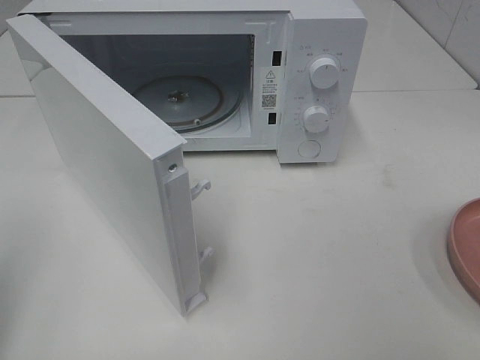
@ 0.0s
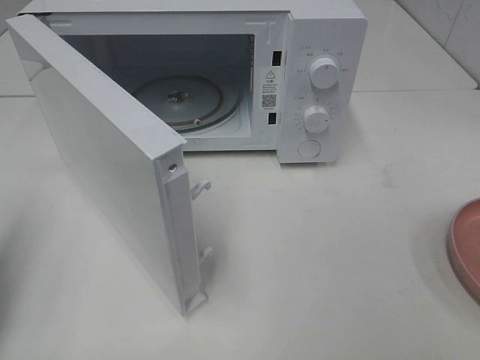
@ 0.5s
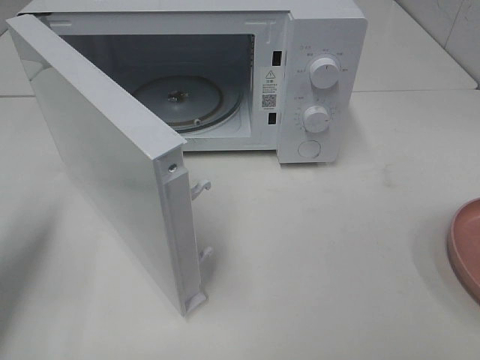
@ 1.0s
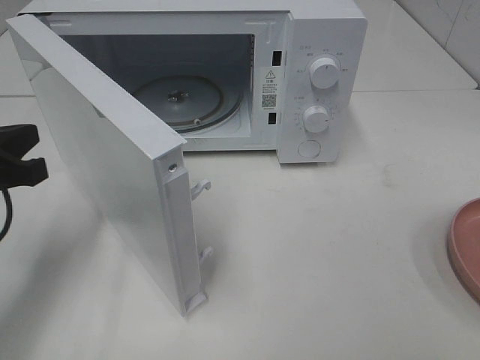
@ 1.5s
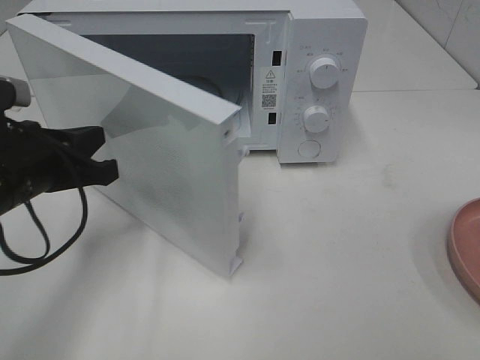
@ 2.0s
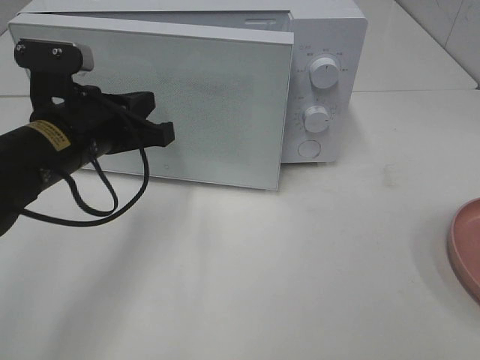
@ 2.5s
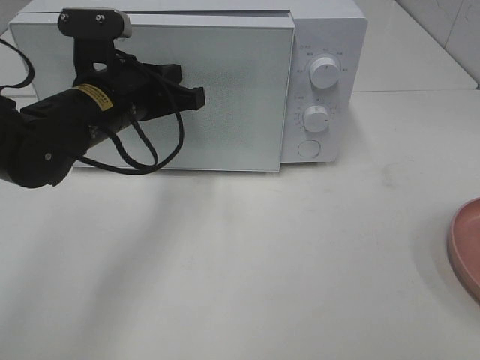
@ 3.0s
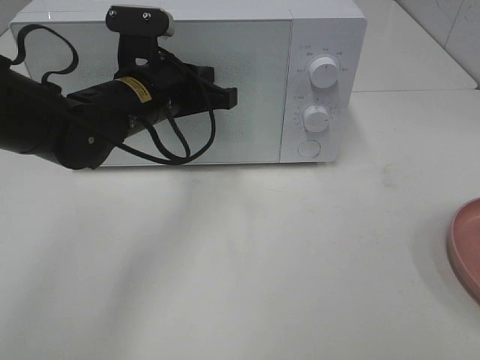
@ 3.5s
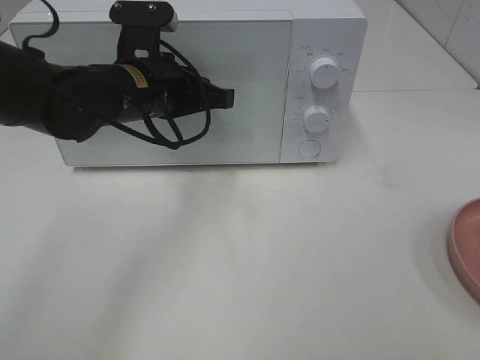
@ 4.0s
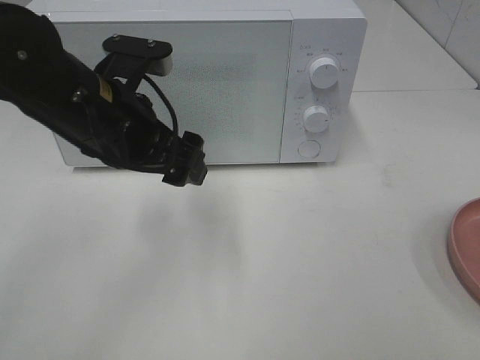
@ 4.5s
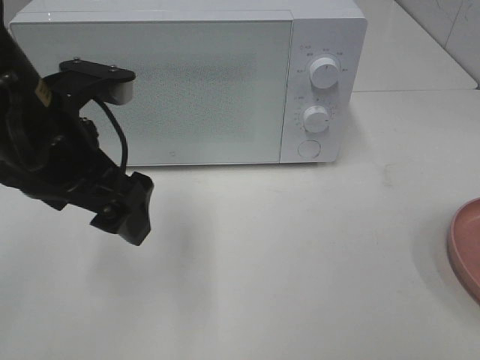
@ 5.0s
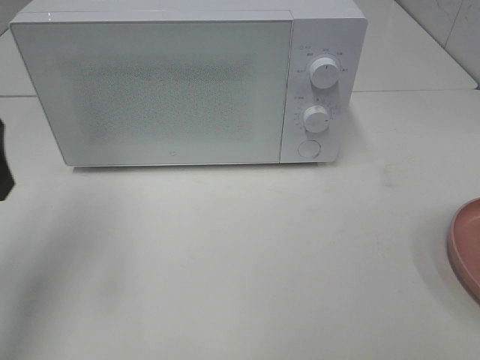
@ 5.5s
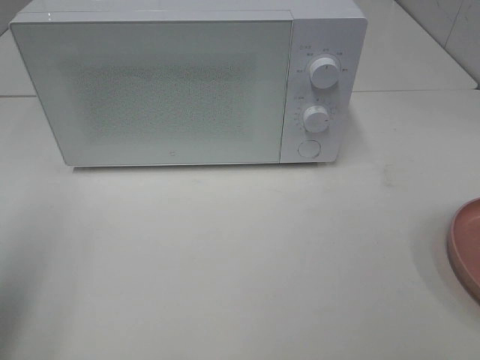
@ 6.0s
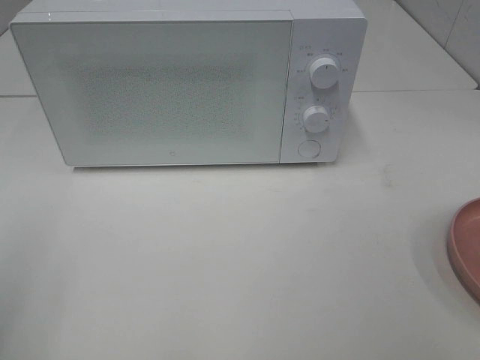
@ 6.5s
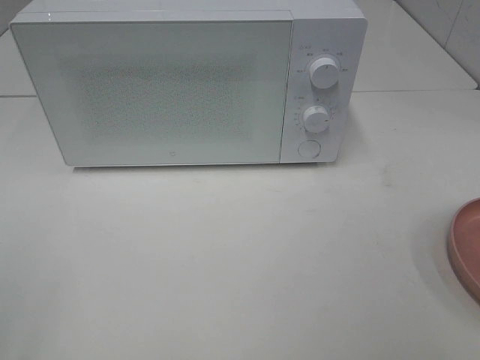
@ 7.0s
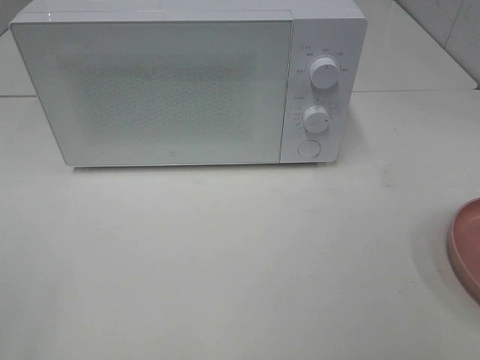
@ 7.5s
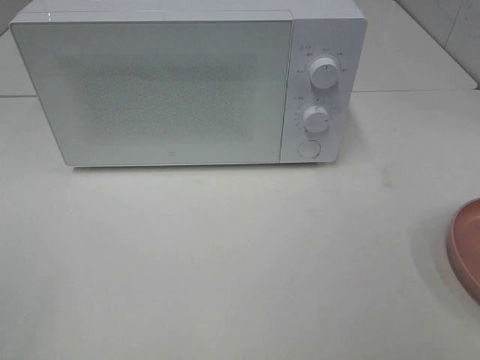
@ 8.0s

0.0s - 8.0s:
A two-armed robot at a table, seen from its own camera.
Task of the whole recording: Heat the burger.
Step, 0.0s - 3.5s: Left hand: close the microwave door.
0.0s - 2.0s: The left gripper heads forward, to the right and downward, covering about 20 cm.
2.0s - 4.0s: The left gripper moves to the right and forward, about 15 cm.
4.0s - 6.0s: The left gripper travels to the left, backward and upward by approximately 30 cm, and opens up.
6.0s - 8.0s: The left gripper travels backward by about 15 cm.

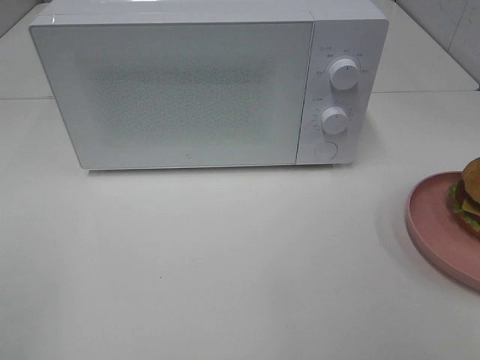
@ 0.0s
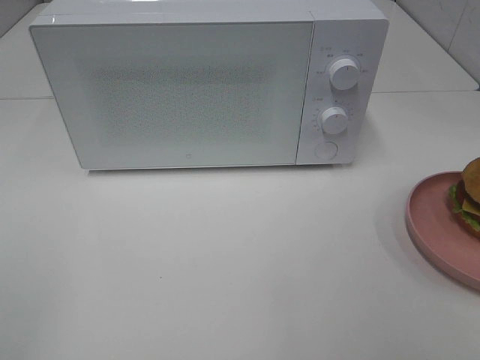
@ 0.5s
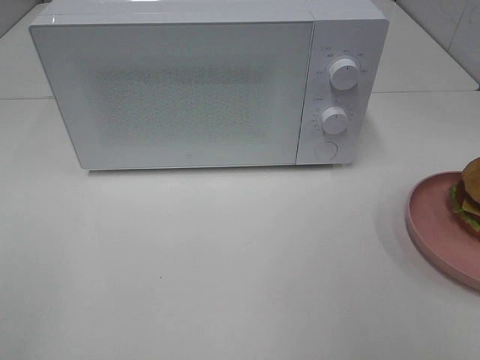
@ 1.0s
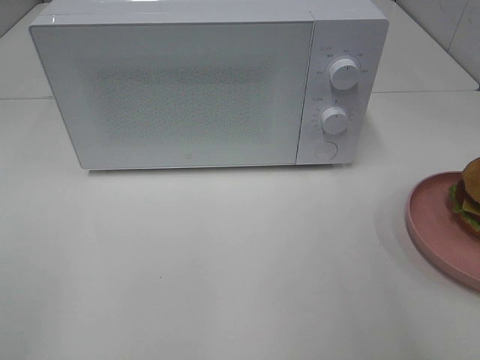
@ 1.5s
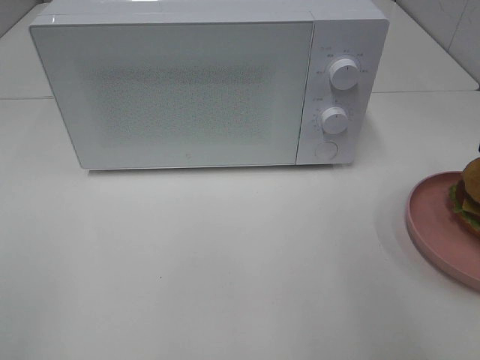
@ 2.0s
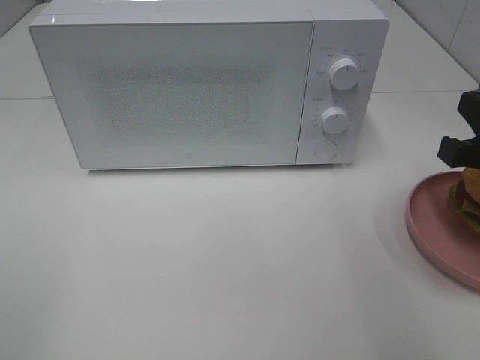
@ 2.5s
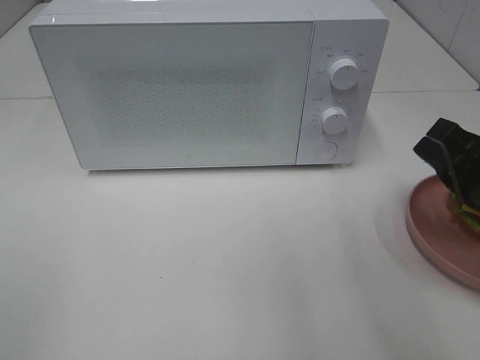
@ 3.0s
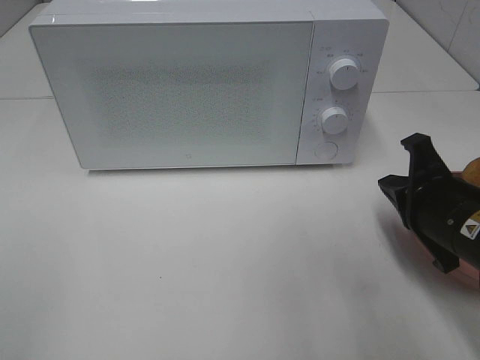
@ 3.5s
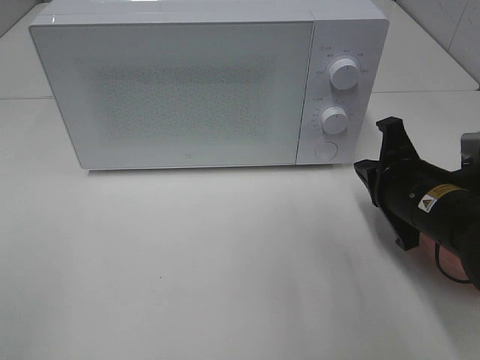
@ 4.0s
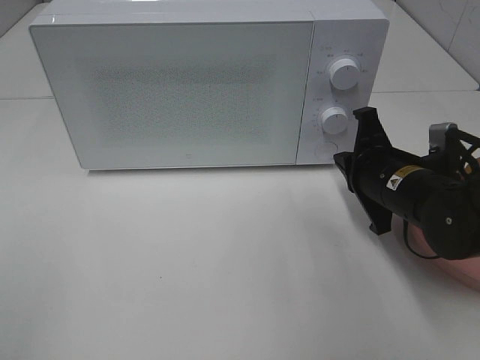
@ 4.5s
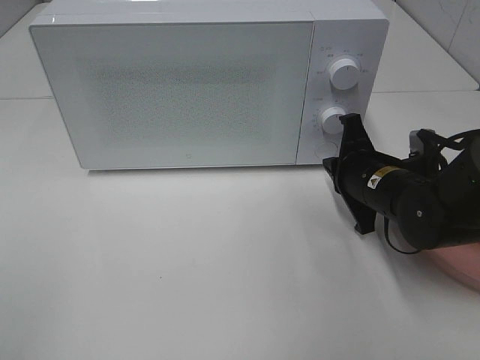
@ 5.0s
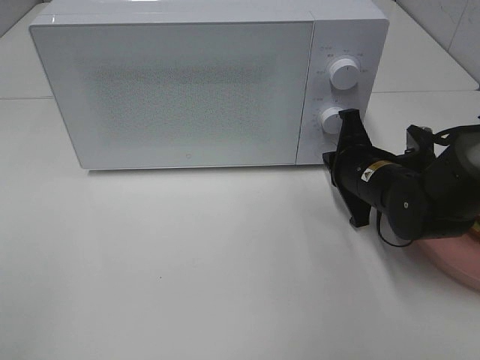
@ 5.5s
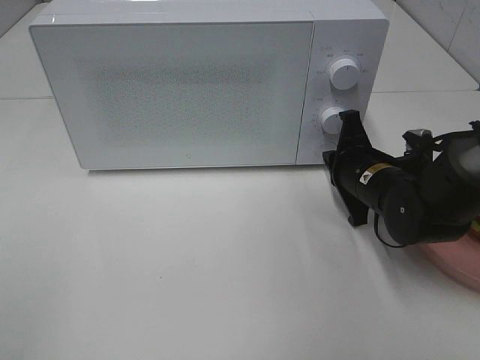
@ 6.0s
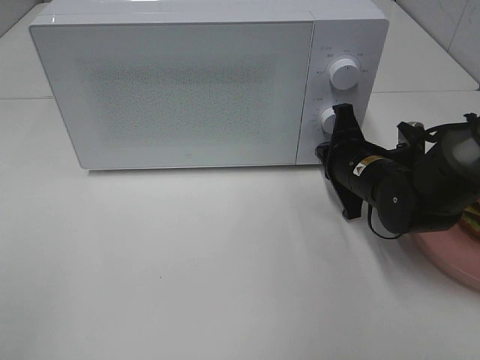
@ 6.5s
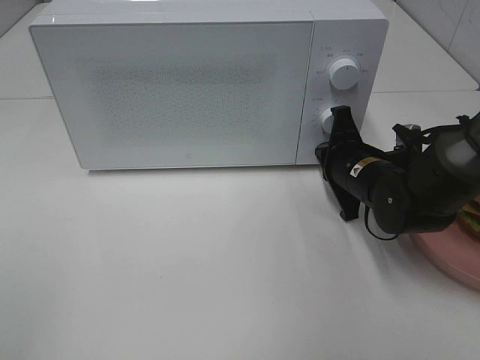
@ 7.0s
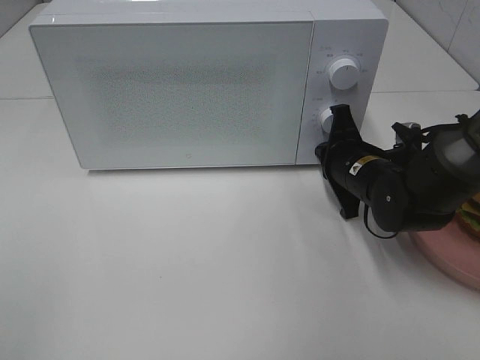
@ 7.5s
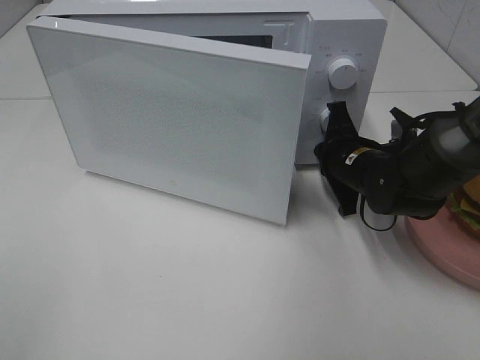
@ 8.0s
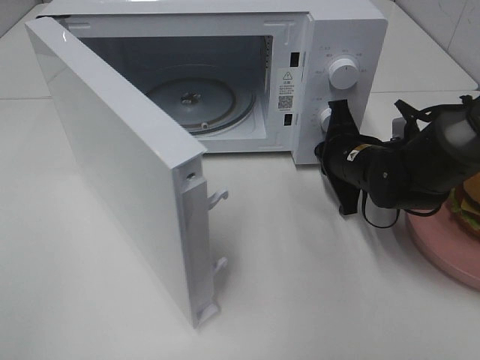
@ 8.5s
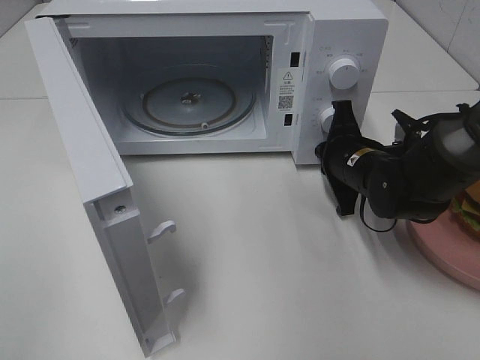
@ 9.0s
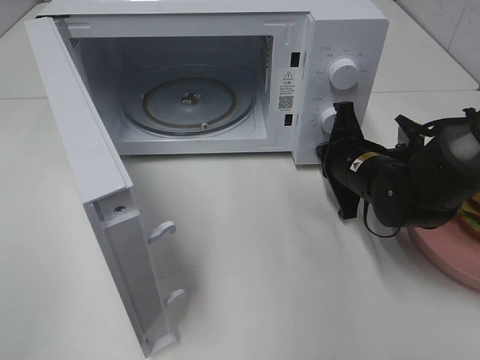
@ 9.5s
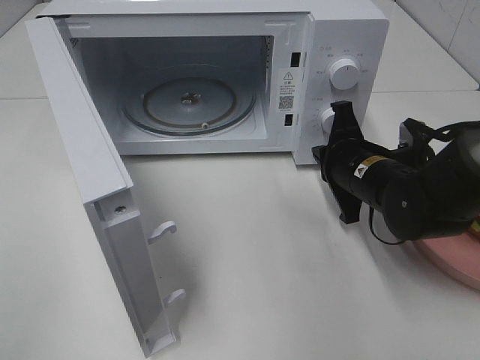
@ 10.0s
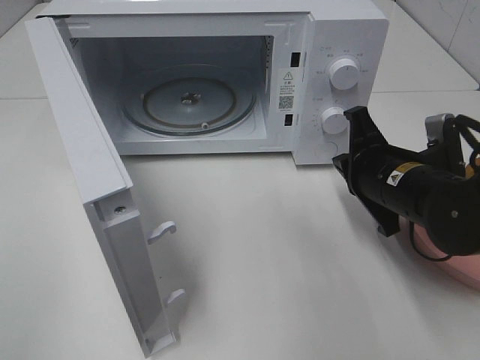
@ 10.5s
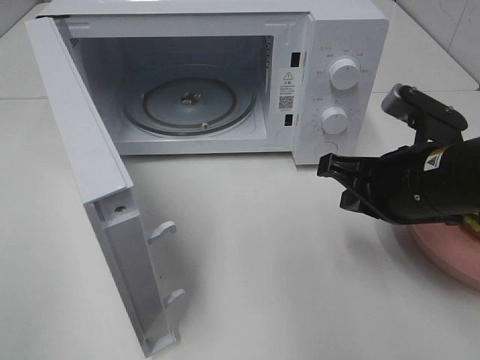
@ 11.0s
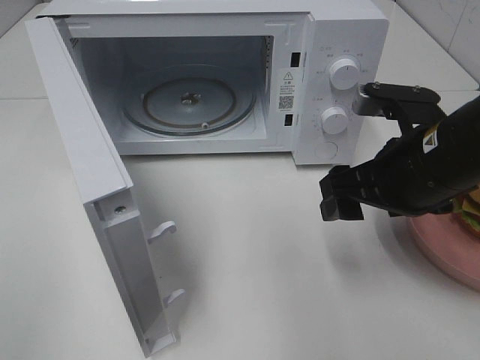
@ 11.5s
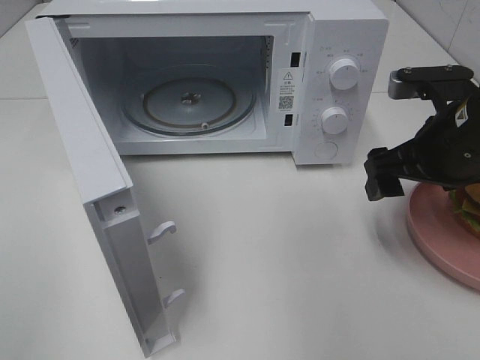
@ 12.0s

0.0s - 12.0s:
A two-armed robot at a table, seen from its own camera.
Task of the whole recording: Heat the burger.
Step, 0.0s - 9.5s: Right hand: press the switch.
2.0s - 4.0s: The right gripper moves downward, forward and to the left, roughly 15 cm.
4.0s - 6.0s: The right gripper is displaced forward by roughly 5 cm.
6.0s - 8.0s: The grippers stay close to where they were, moving slightly.
10.0s - 12.0s: The right gripper travels upward and to the right by some 10 cm, and opens.

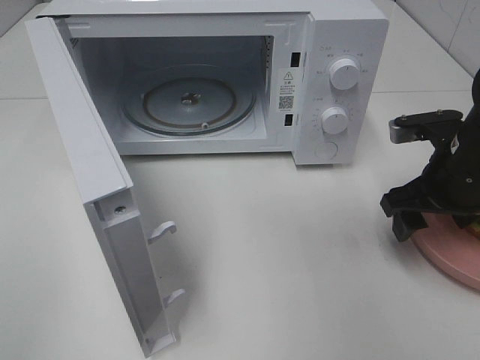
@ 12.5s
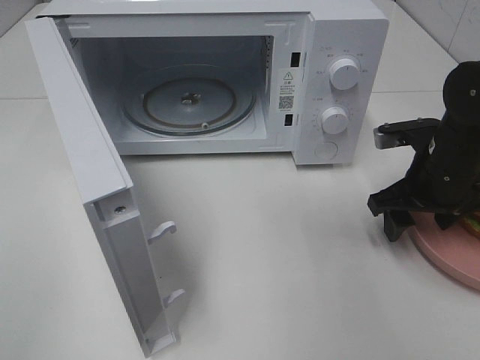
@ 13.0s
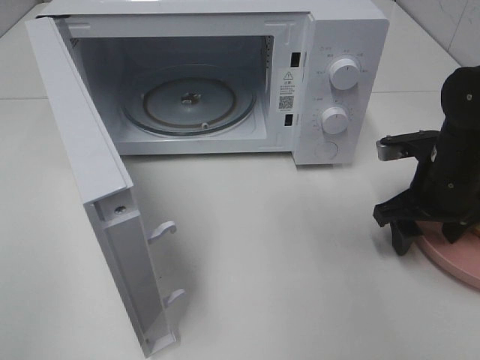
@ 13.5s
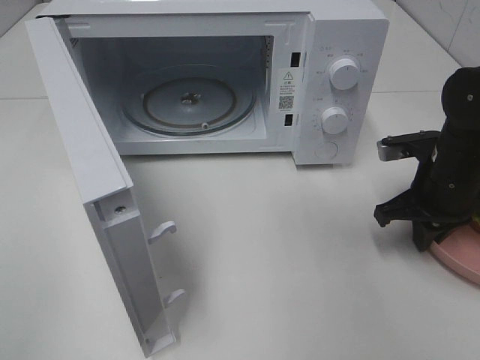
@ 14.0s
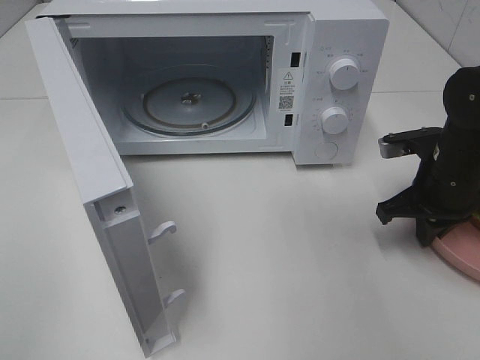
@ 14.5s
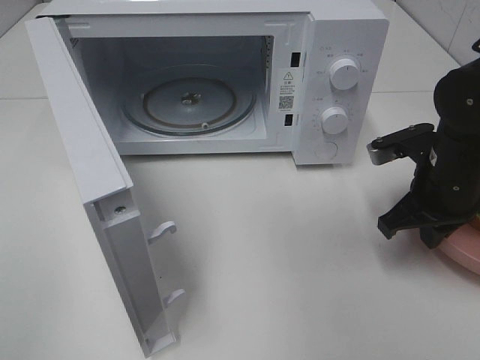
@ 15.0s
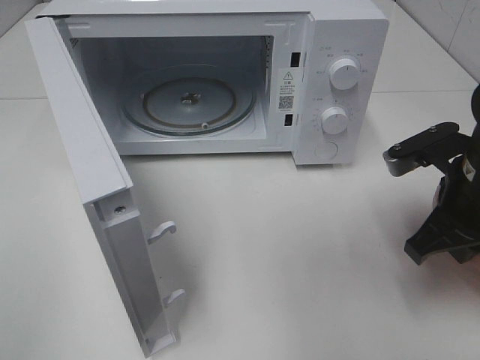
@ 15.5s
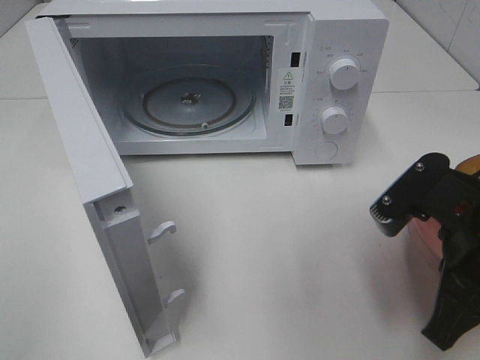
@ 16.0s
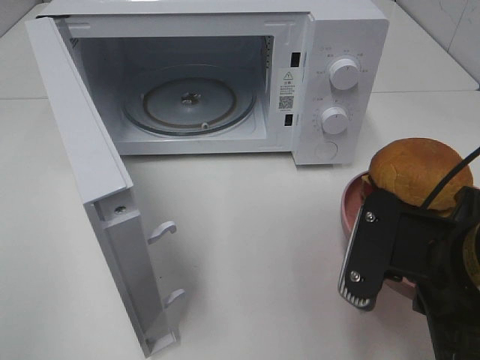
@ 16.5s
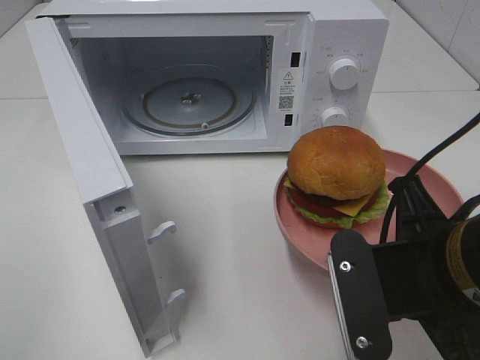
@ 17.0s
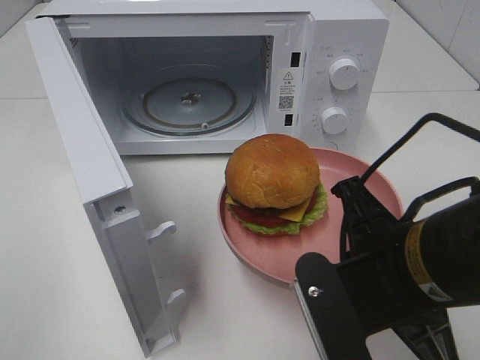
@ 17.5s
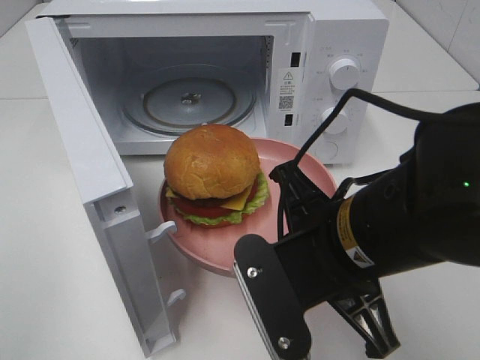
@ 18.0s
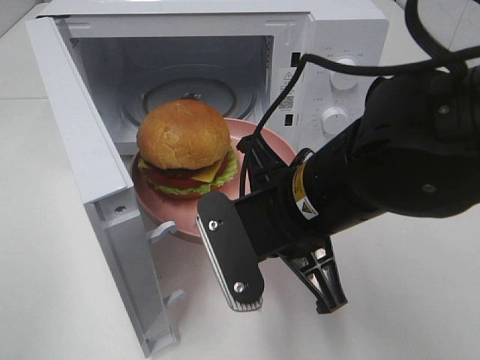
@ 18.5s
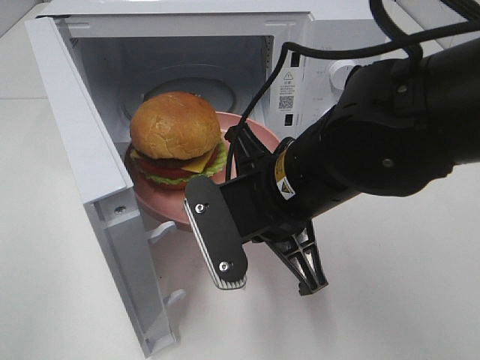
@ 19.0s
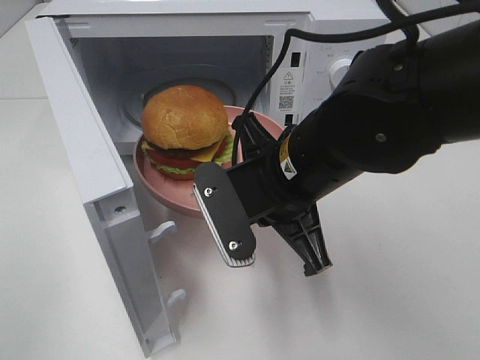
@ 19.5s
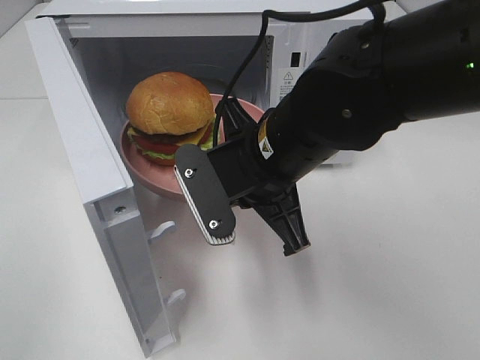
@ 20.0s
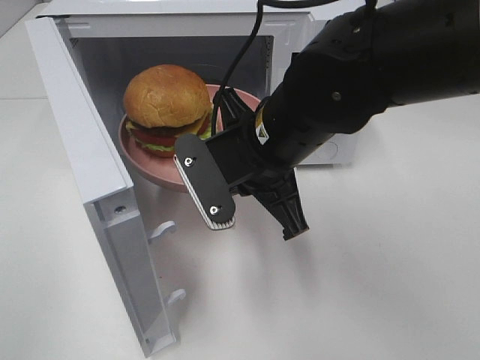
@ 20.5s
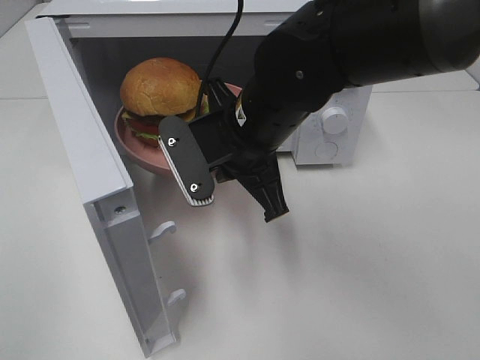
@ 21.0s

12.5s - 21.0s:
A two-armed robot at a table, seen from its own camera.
Task of the whole recording: Heat the burger.
12.5s - 14.5s: The right gripper closes its fingers.
14.5s - 16.5s: The right gripper is displaced backward, to the left and upward by roughly 20 cm.
16.5s - 19.0s: The right gripper moves to the left and forward, some 15 cm.
19.0s - 21.0s: The right gripper is displaced forward by some 5 cm.
